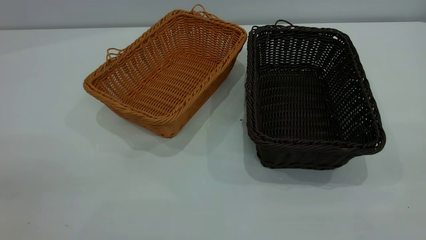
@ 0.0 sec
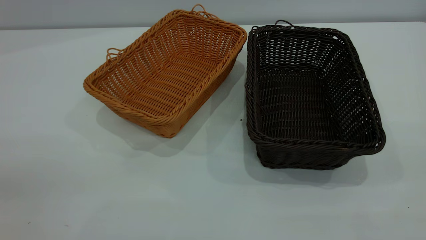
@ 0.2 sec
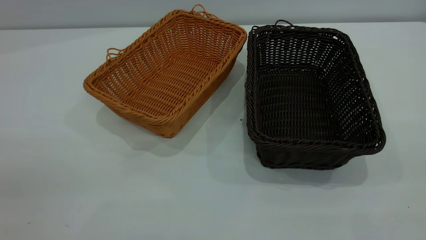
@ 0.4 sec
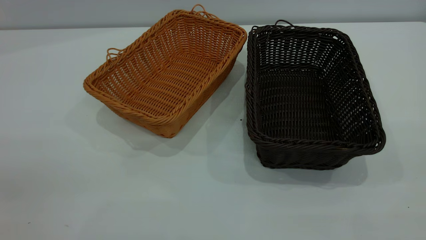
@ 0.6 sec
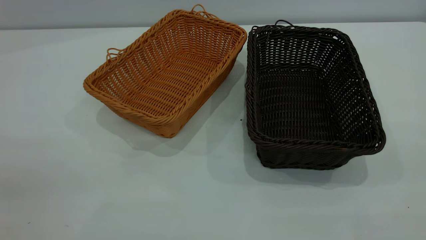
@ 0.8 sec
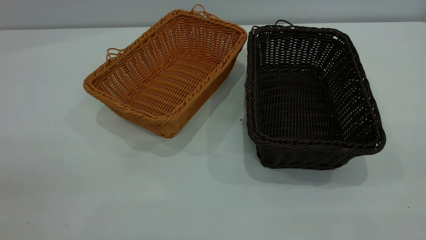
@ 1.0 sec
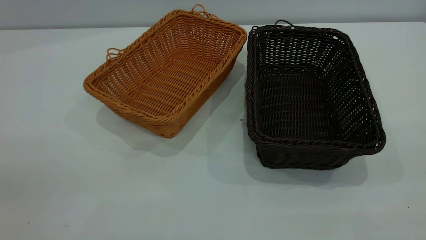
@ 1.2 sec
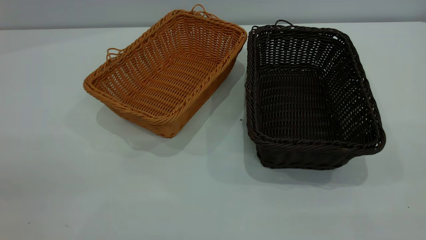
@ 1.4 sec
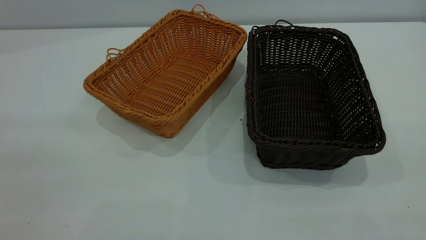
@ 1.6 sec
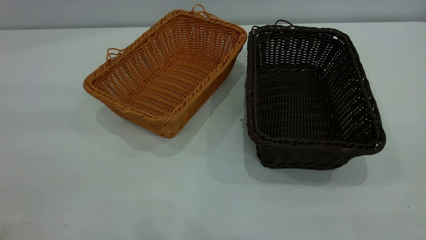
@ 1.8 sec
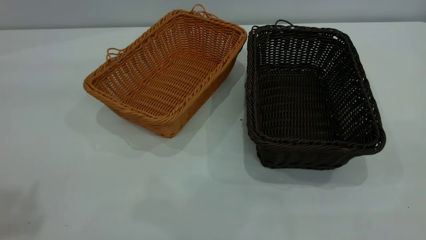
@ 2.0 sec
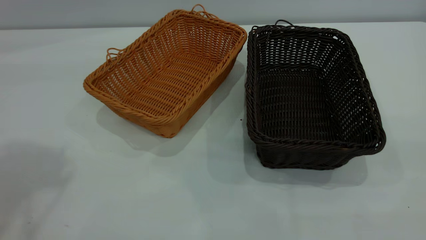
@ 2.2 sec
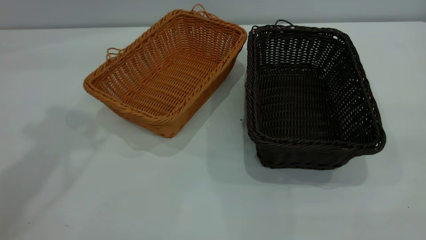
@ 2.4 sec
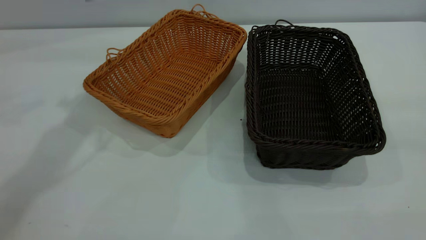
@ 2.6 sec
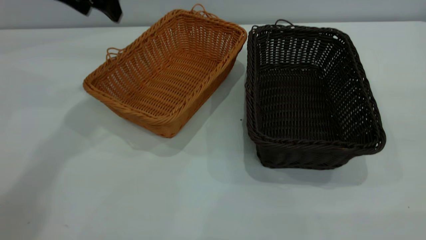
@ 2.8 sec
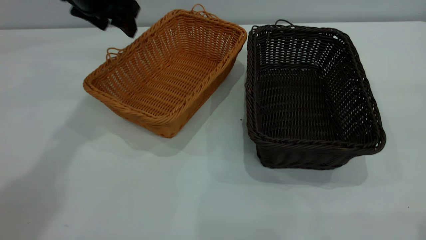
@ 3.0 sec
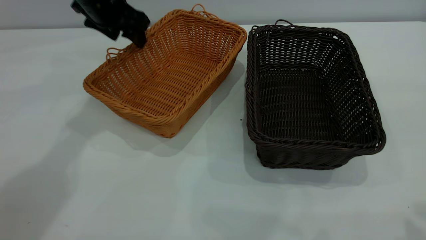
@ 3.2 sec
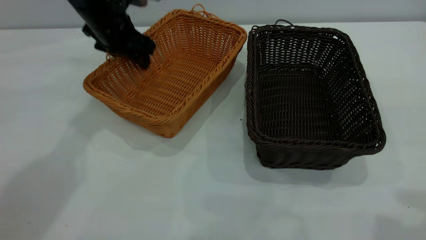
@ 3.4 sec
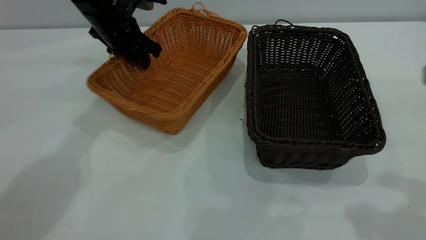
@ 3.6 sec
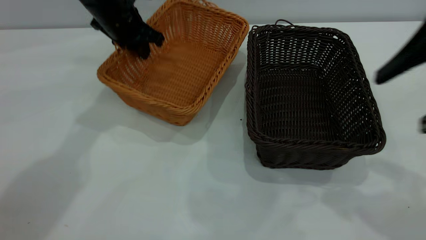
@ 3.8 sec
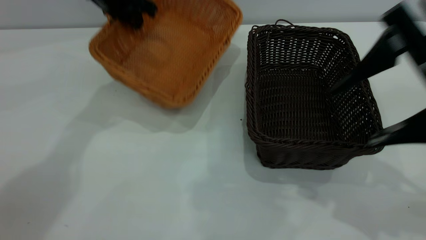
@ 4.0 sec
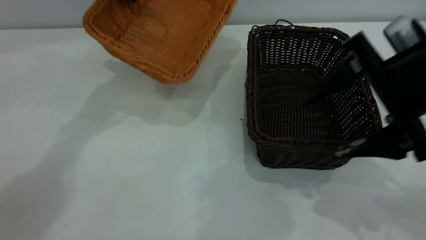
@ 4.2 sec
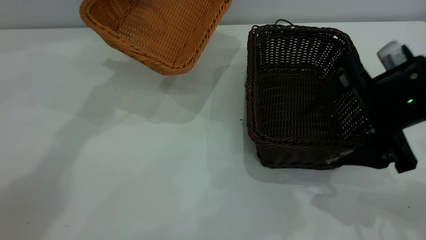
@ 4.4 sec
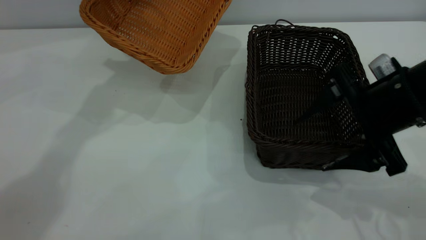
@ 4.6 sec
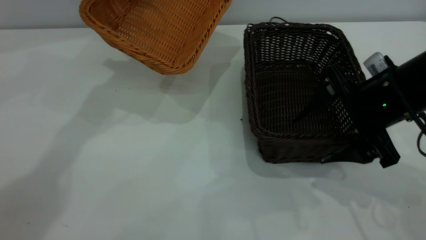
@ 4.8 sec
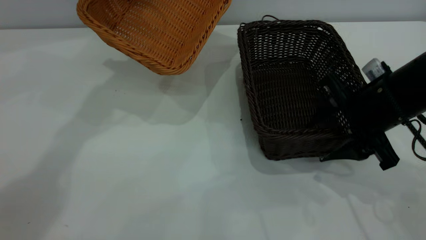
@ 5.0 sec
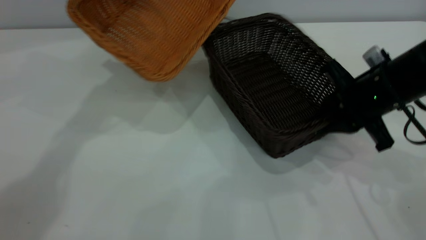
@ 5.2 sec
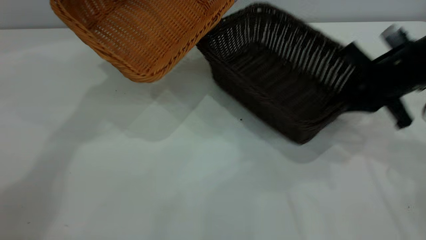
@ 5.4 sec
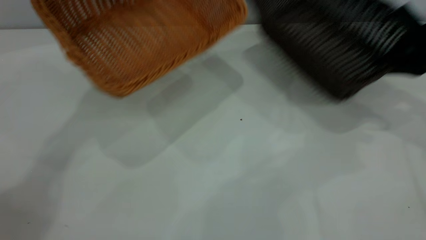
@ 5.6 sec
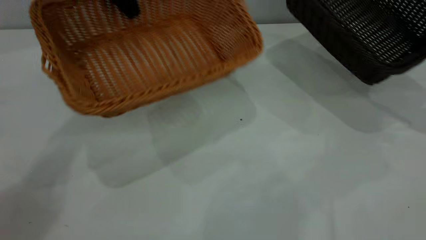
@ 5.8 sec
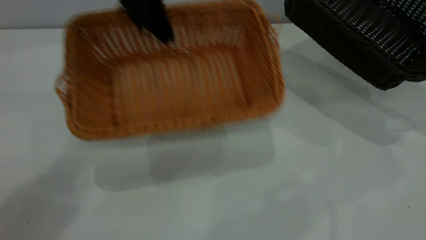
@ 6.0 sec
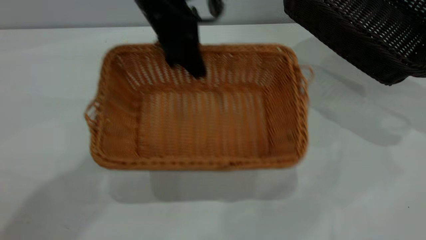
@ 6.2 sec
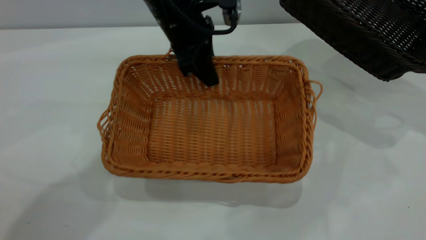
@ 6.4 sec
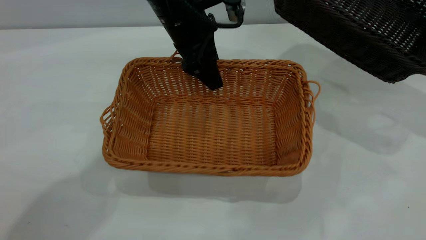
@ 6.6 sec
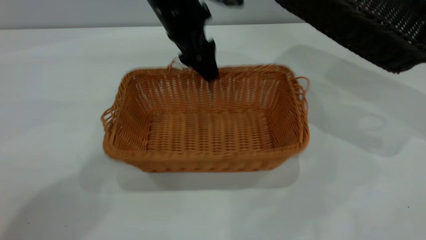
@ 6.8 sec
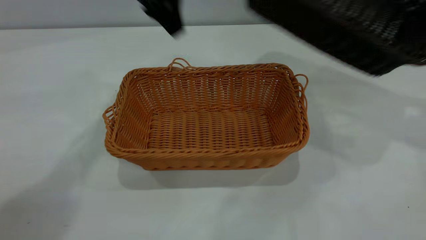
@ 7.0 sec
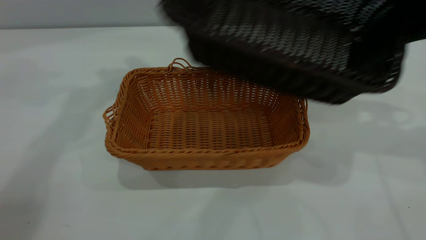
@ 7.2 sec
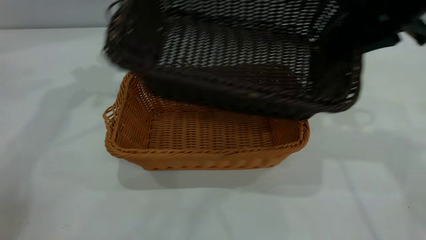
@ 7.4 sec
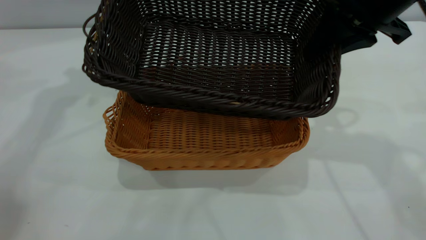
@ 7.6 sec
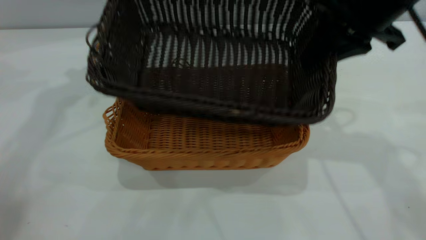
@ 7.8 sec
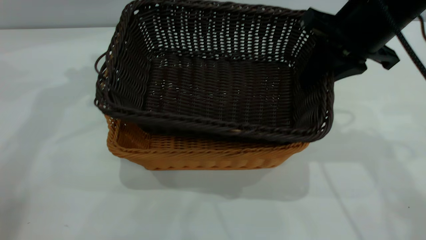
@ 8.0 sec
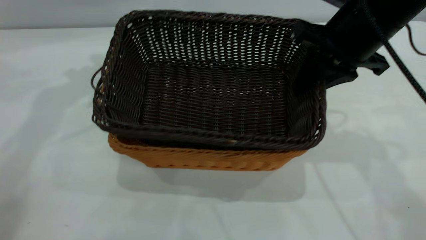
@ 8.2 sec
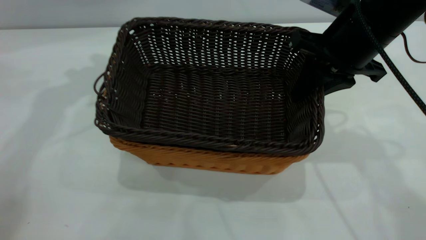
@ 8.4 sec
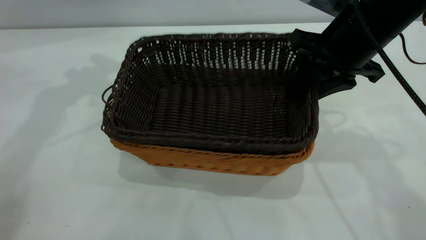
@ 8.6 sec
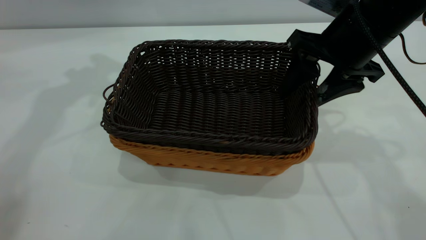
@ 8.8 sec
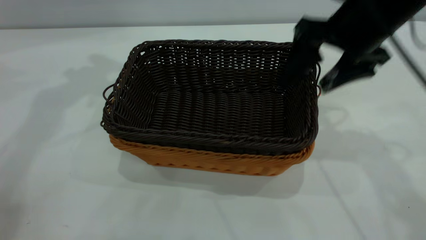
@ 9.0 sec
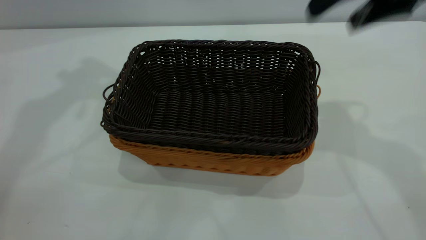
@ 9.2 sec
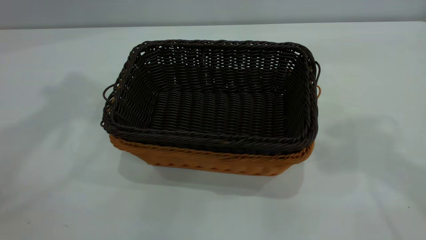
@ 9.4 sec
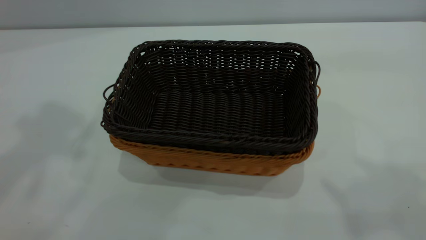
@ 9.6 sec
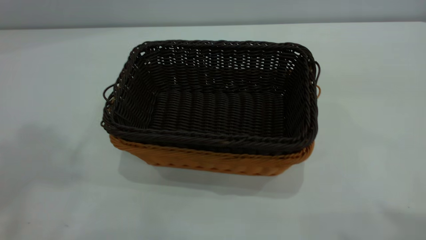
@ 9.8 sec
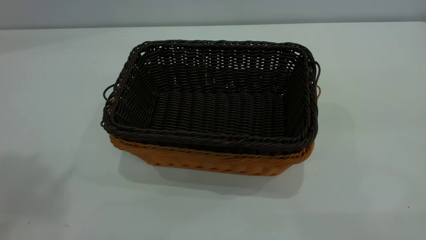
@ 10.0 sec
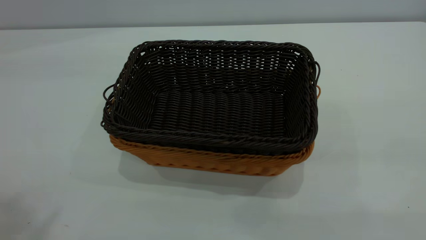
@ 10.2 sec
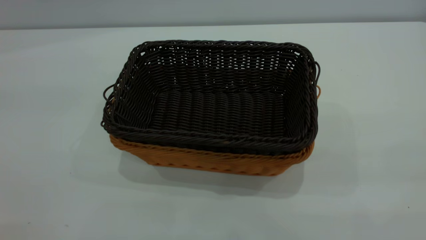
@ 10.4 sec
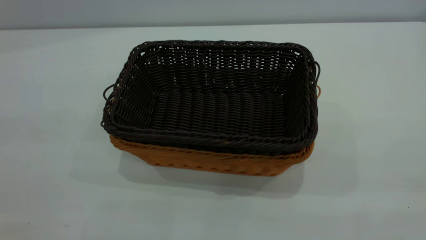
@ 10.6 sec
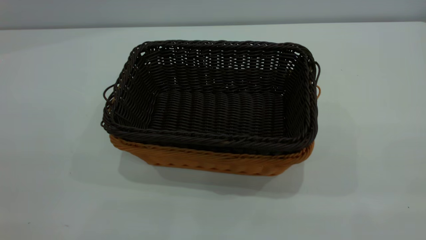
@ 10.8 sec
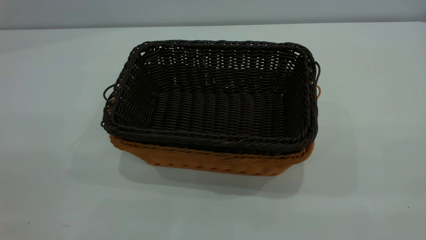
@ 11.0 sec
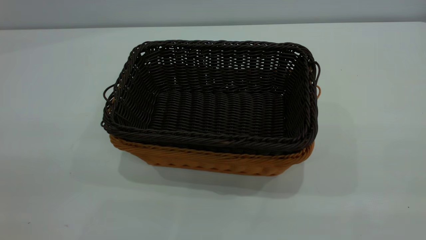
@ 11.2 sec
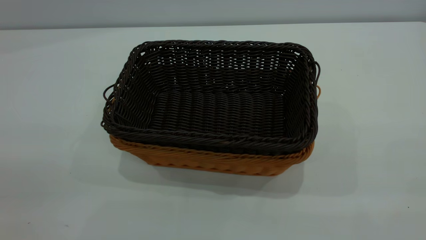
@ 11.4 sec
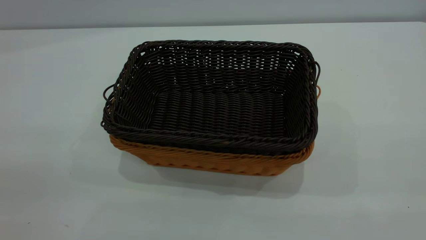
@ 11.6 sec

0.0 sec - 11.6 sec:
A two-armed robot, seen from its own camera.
Task of the whole recording: the left gripper grasp the brown basket and place it in the center of the table, the right gripper grasp the black basket and place it inside the brown one.
Step, 0.0 sec - 5.4 sec: Pick up the light basket with the right gripper.
Step, 5.6 sec - 7.0 sec: Place the light-colored basket in the center.
Step, 7.2 sec - 9.0 sec: Place the dark basket on top of the light basket.
0.0 sec - 1.4 sec: Neither gripper changes place.
1.4 sec - 2.8 sec: The left gripper moves forward, approximately 50 cm.
2.8 sec - 4.4 sec: The left gripper travels downward and back again, about 10 cm each way, and closes its fingers. Meanwhile the right gripper shifts some 25 cm downward, forward and to the left.
4.4 sec - 5.8 sec: The right gripper is displaced to the right and forward by roughly 20 cm, and closes up.
5.8 sec - 7.2 sec: The right gripper goes about 15 cm to the left and upward. Meanwhile the left gripper goes to the right and returns, some 10 cm each way, and opens.
7.2 sec - 8.8 sec: The right gripper shifts about 10 cm to the left and downward, and opens its fingers.
8.8 sec - 10.2 sec: The two grippers go some 40 cm backward and upward.
